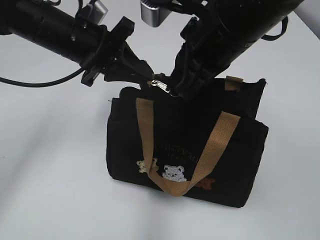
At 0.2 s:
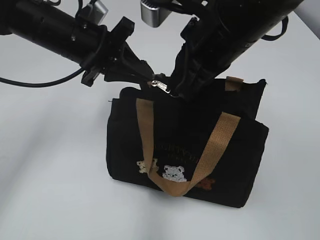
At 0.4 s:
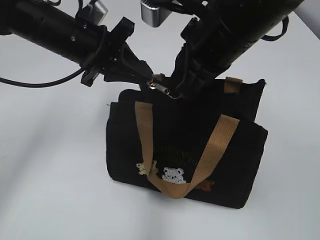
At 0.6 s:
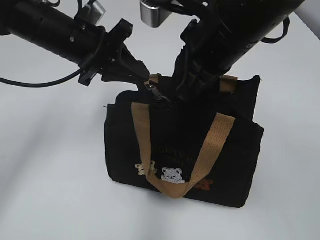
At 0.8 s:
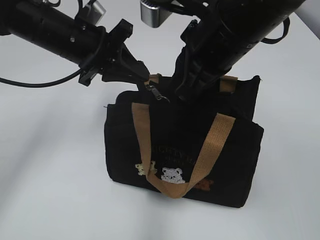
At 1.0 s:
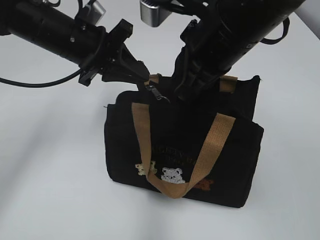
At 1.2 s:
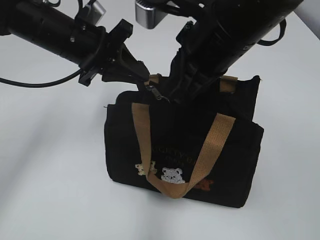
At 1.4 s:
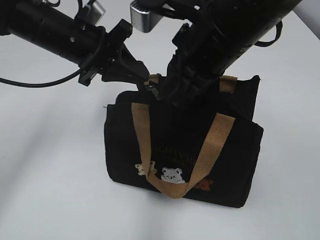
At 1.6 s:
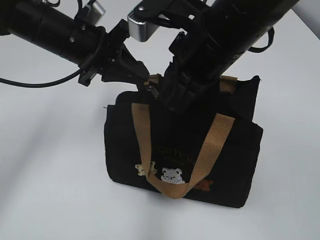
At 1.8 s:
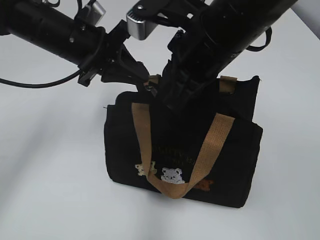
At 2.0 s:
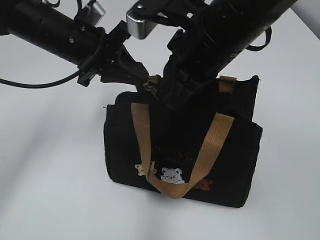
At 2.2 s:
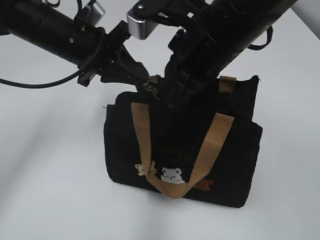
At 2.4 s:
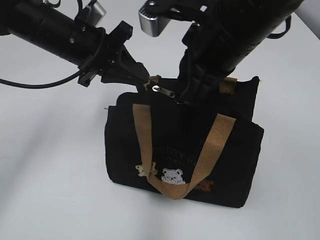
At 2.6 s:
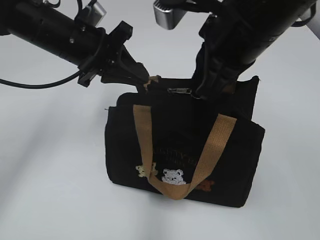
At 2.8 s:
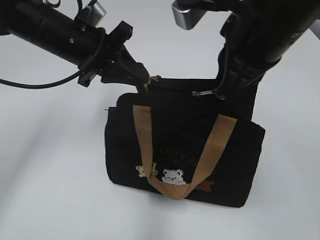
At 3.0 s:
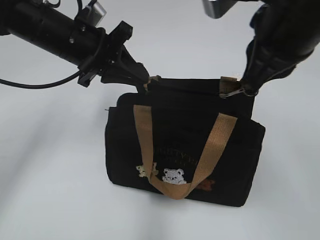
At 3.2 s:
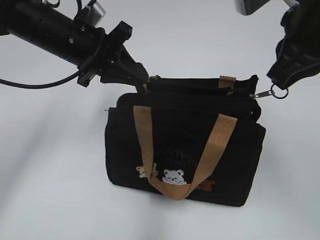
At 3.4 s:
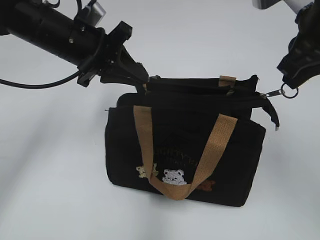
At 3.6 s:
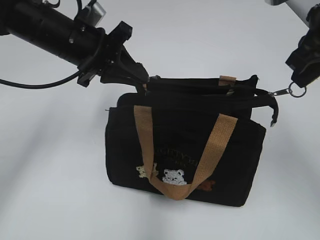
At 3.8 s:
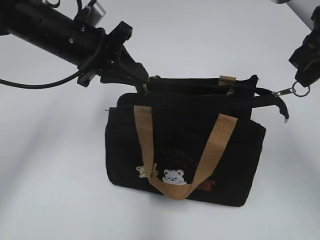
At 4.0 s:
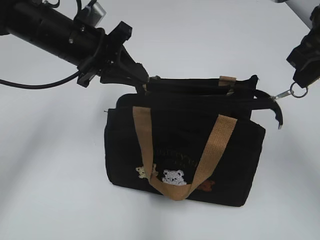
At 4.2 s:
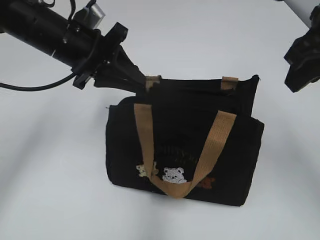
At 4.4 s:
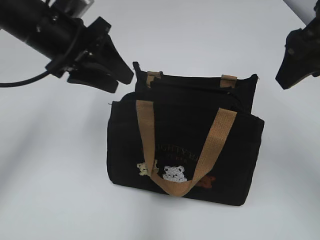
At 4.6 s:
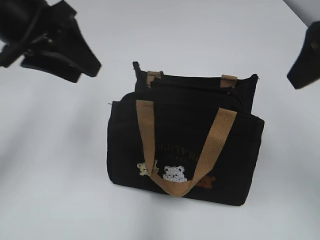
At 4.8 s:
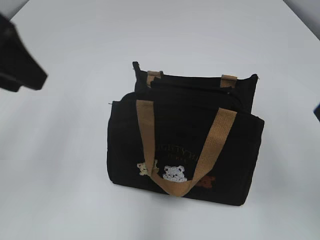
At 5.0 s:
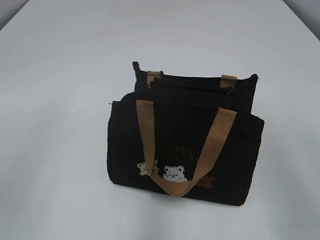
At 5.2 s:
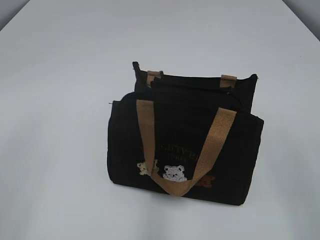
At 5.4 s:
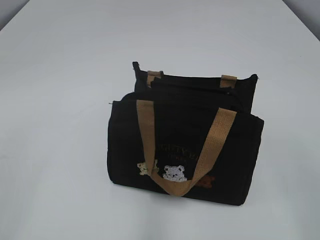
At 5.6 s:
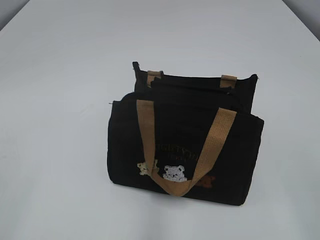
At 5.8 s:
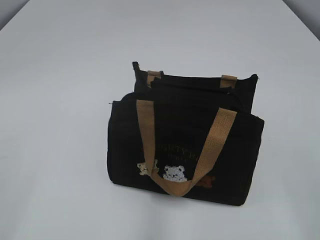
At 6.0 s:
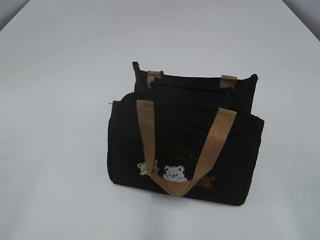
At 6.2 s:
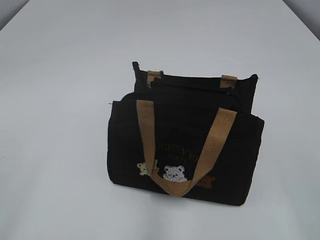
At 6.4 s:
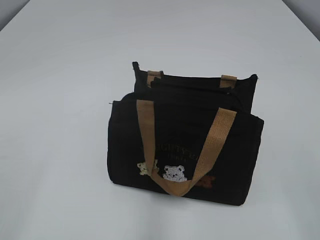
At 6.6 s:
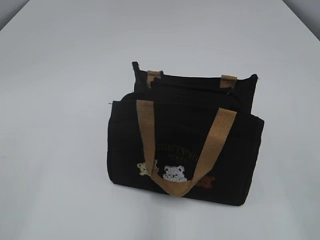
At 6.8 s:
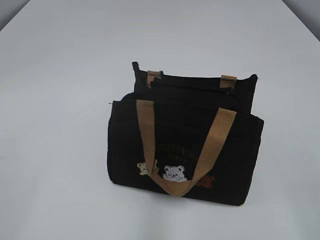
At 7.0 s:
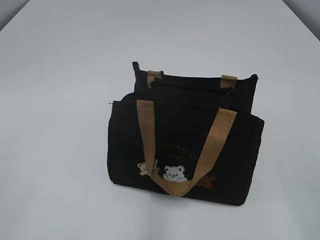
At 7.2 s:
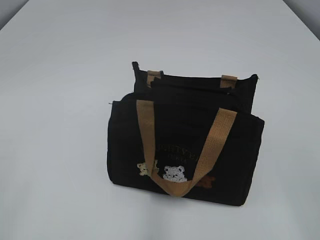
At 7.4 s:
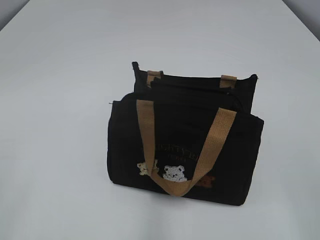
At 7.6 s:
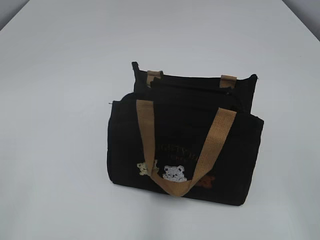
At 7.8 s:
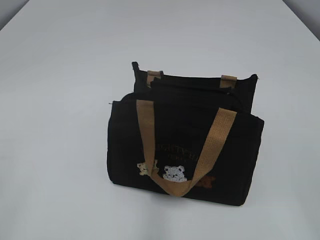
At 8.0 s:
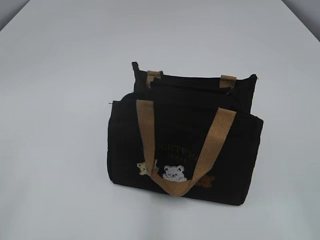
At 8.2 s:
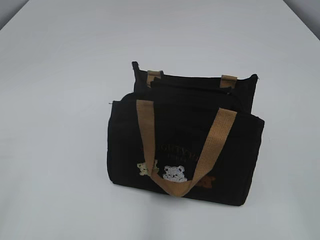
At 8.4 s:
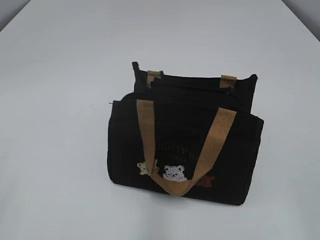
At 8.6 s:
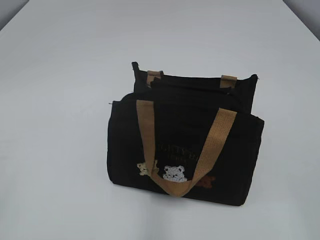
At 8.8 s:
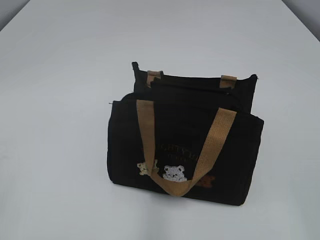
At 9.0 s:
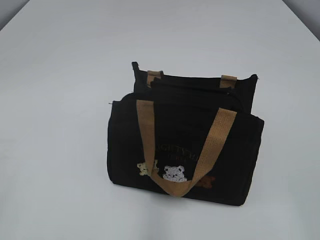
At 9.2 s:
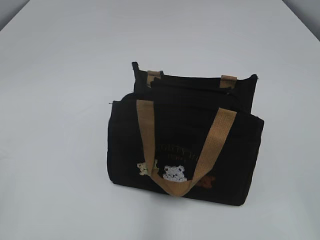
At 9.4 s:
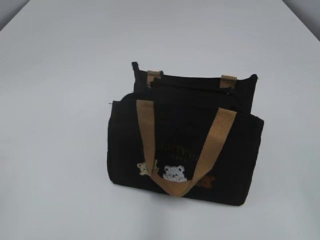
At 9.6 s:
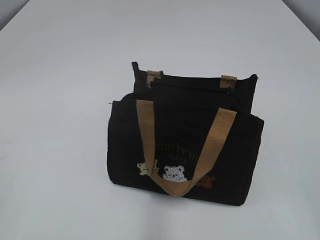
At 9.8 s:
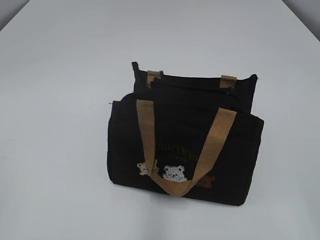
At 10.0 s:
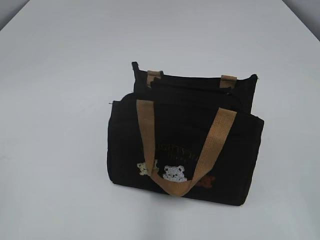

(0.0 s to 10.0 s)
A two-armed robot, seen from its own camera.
Step, 0.0 s - 4.0 s: Pull open the zipper with your right hand.
0.0 s - 2.8 s: The grippers stay close to where they were, moving slightly.
2.8 s - 4.2 s: The right gripper moves to the right, roughly 10 cm, and opens up.
4.2 s - 5.8 s: The left gripper heads backward and to the left, covering about 35 cm, and opens; the right gripper heads backward, covering about 25 cm, and opens up.

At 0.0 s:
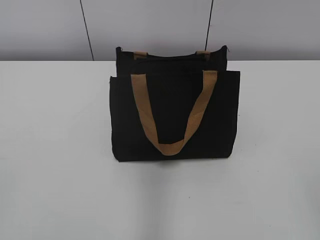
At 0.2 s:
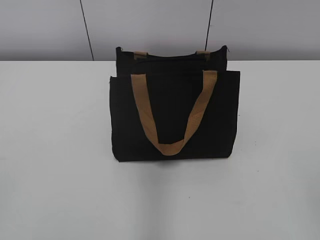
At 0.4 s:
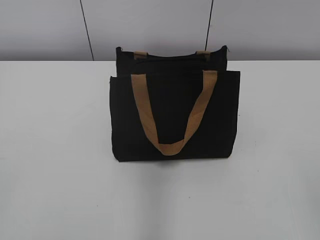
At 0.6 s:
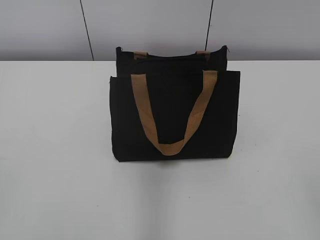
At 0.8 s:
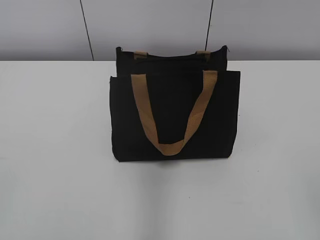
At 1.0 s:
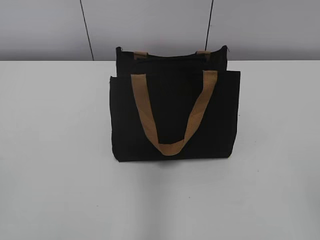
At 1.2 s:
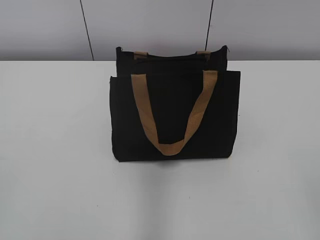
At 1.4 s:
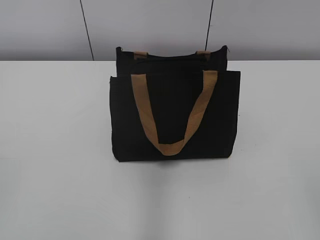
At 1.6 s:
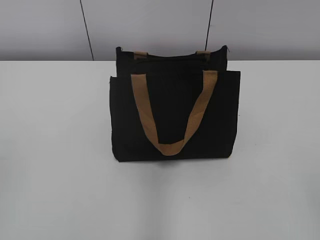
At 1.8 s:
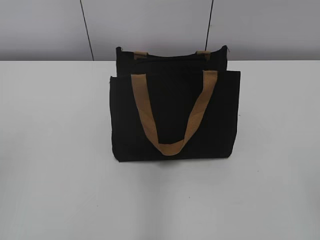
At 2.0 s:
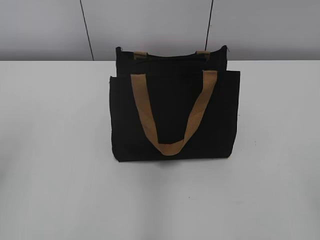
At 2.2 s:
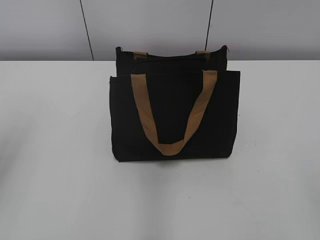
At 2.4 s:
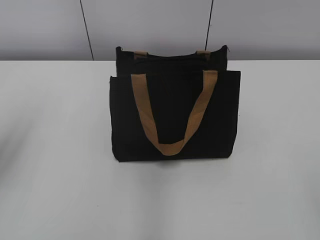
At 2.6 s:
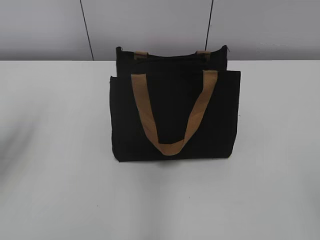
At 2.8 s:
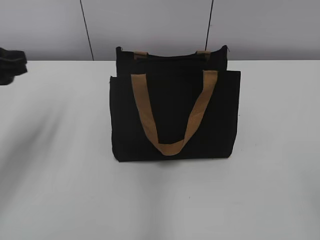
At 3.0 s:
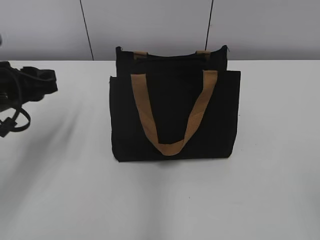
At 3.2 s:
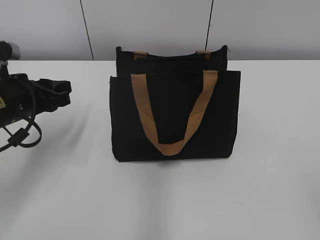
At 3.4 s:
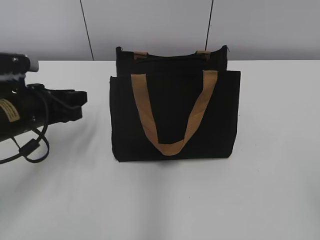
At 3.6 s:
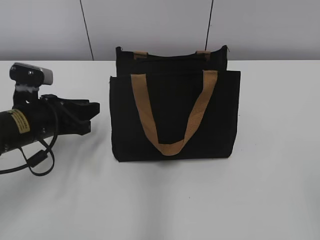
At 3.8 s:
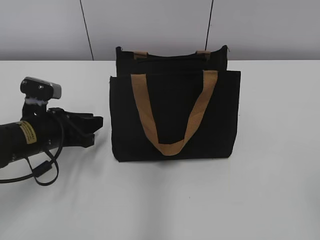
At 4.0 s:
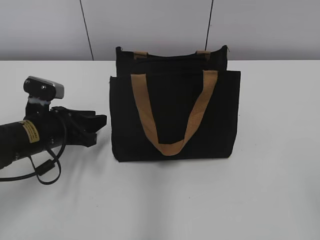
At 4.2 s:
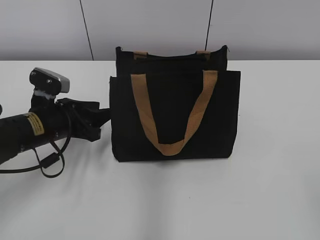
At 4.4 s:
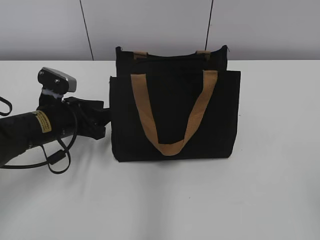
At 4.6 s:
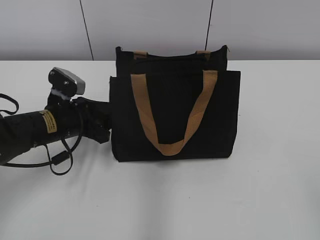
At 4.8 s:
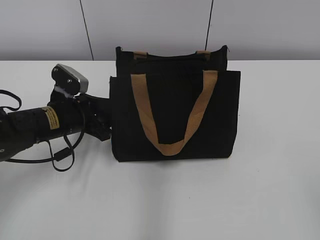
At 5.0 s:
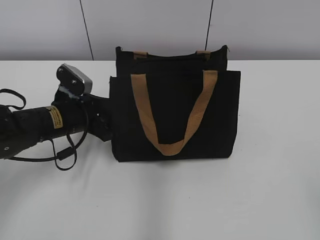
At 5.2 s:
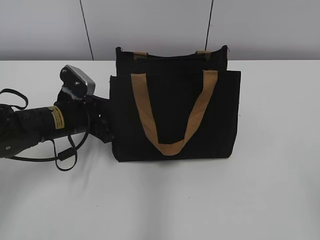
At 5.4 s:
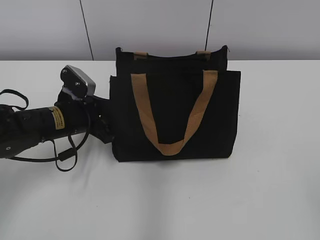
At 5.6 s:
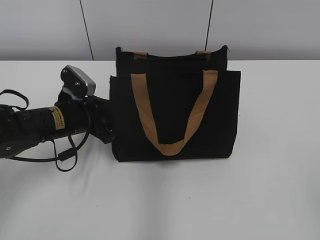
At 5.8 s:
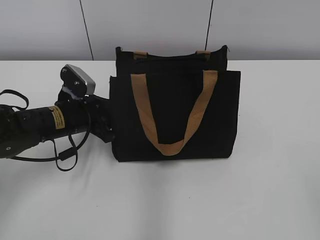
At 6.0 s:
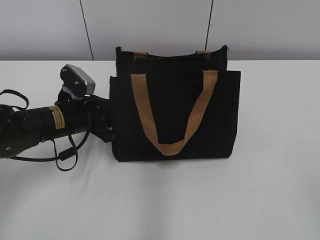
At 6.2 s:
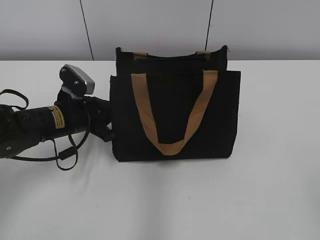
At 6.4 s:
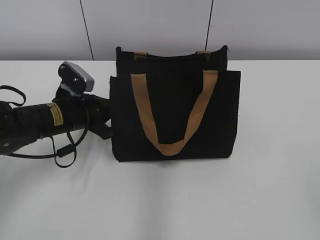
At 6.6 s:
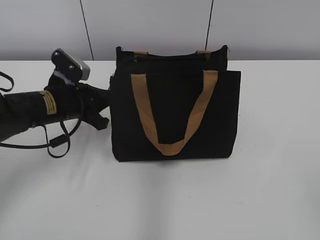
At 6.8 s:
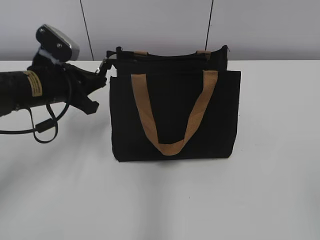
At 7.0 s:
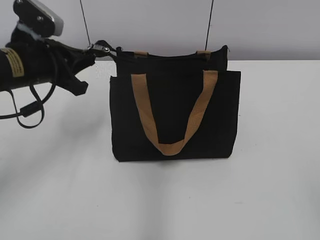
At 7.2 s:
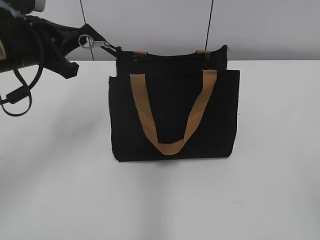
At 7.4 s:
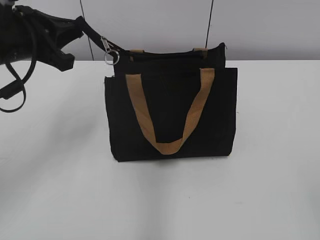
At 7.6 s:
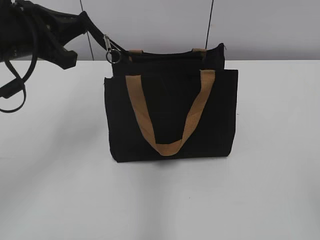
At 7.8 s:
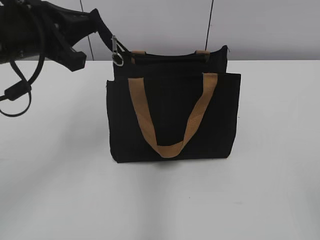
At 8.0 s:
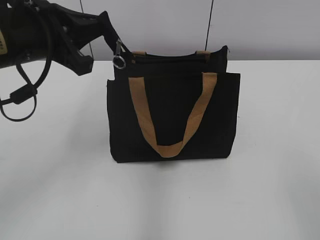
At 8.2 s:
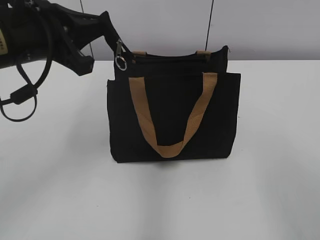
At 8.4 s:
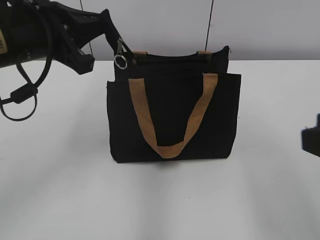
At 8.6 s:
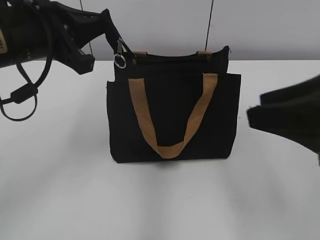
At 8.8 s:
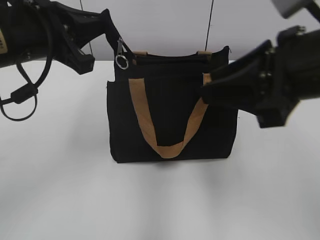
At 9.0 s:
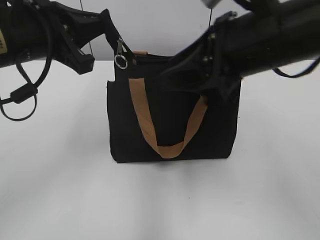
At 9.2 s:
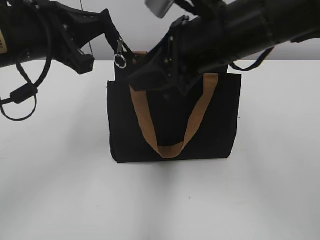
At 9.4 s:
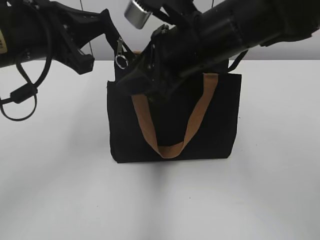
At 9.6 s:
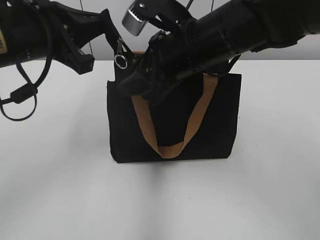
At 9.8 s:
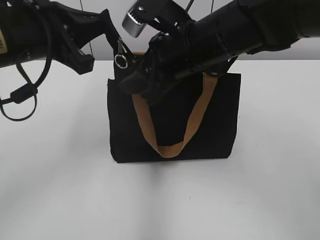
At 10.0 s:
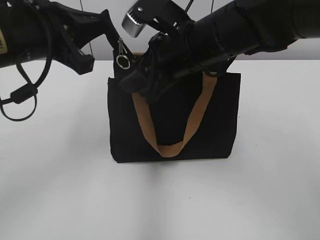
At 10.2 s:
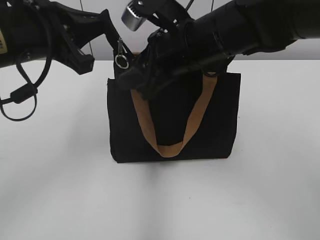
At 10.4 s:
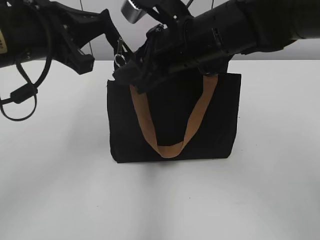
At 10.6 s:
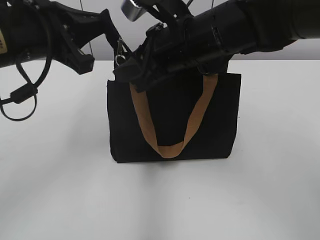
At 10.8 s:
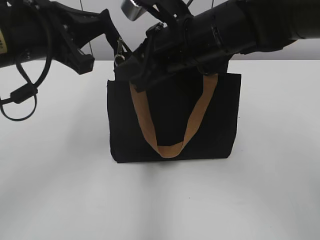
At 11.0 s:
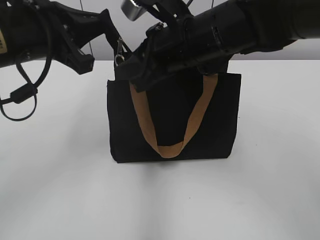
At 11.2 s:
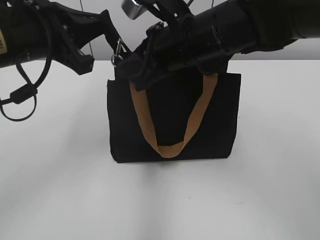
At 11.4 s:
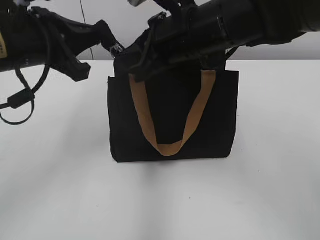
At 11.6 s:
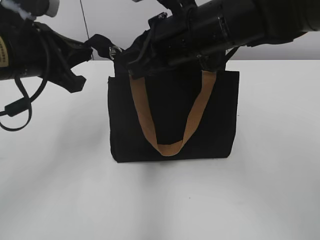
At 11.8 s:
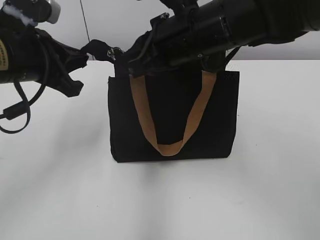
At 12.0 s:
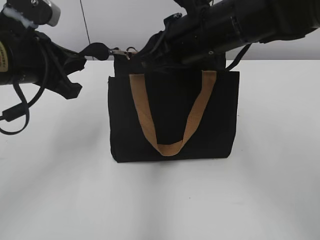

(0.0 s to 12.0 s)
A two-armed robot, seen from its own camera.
1.6 s - 3.0 s: The left gripper shifts roughly 25 cm forward and downward.
3.0 s - 4.4 s: The left gripper goes approximately 10 cm downward and to the right.
4.4 s - 6.0 s: There are only small adjustments of the grippers.
6.0 s - 7.6 s: The left gripper goes roughly 20 cm upward, and closes up.
7.6 s - 9.0 s: The right gripper moves forward and to the left, approximately 30 cm.
9.0 s - 10.4 s: The right gripper goes some 10 cm forward and to the left.
10.4 s - 12.0 s: The right gripper closes.
